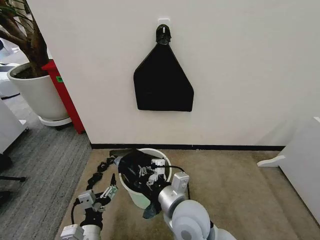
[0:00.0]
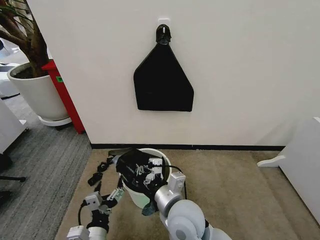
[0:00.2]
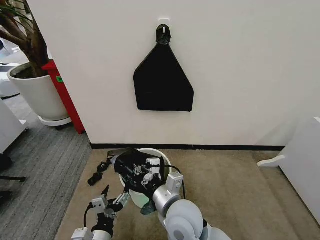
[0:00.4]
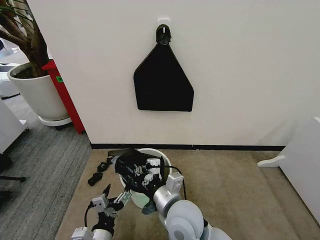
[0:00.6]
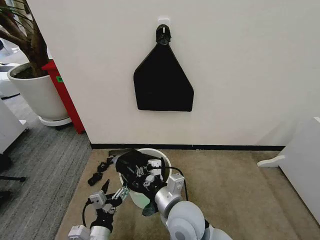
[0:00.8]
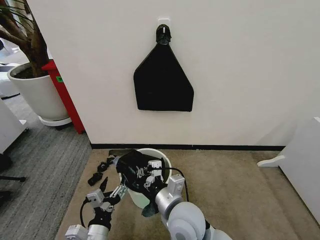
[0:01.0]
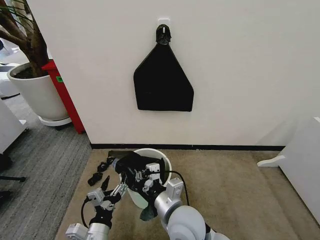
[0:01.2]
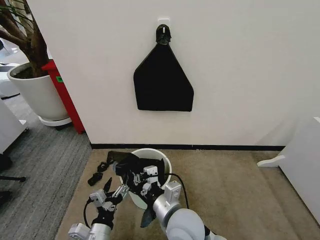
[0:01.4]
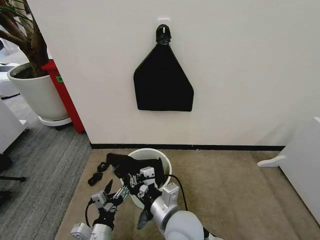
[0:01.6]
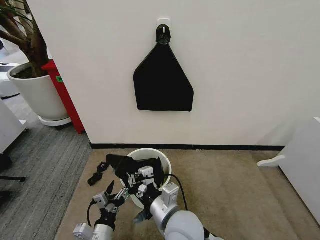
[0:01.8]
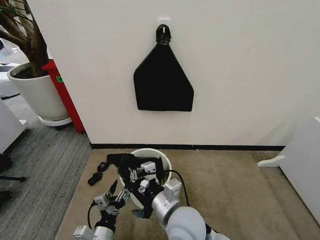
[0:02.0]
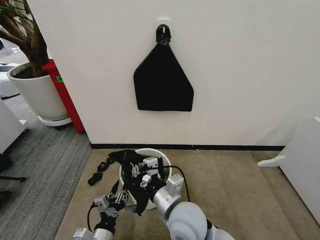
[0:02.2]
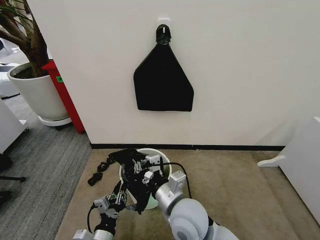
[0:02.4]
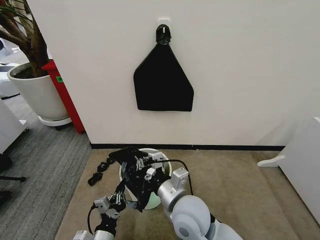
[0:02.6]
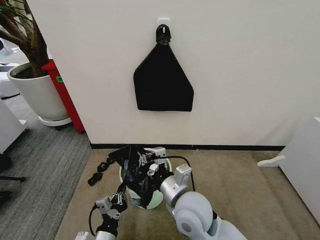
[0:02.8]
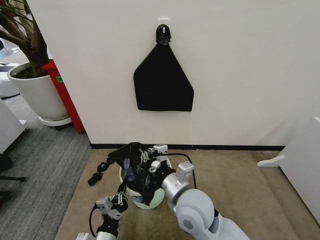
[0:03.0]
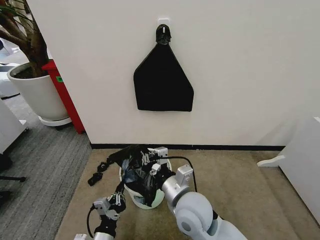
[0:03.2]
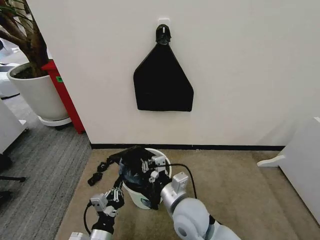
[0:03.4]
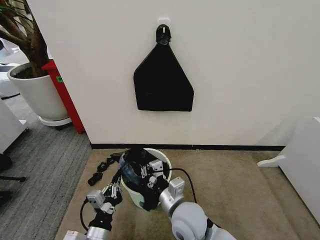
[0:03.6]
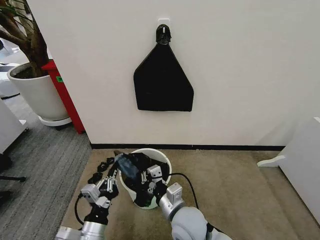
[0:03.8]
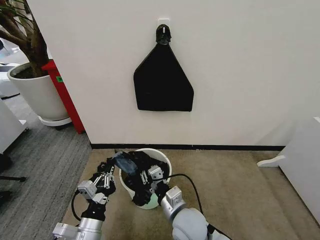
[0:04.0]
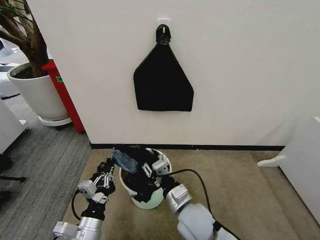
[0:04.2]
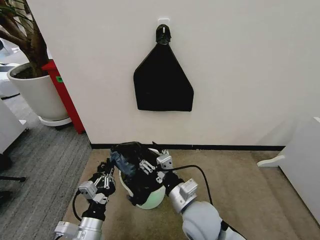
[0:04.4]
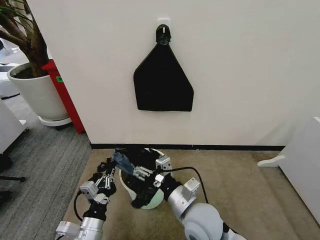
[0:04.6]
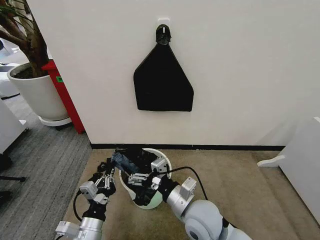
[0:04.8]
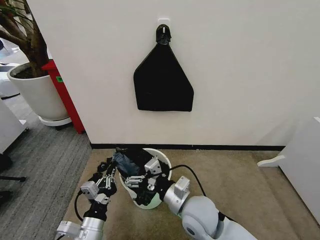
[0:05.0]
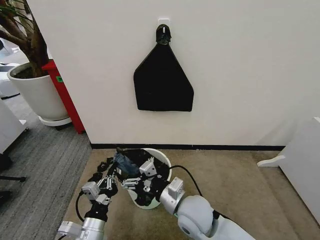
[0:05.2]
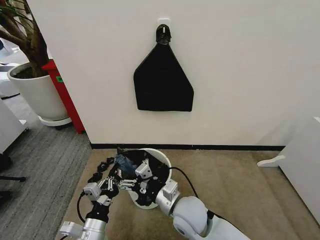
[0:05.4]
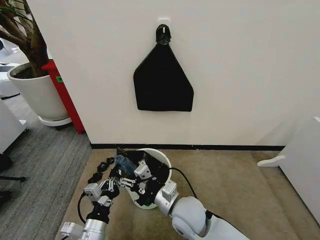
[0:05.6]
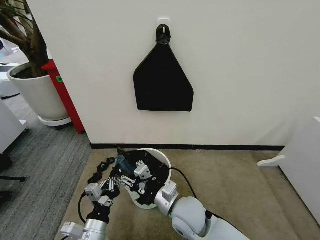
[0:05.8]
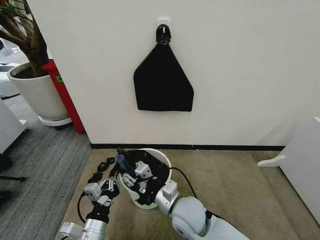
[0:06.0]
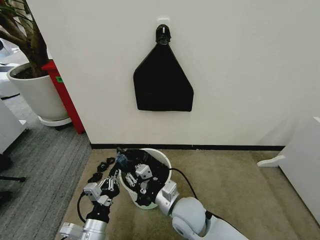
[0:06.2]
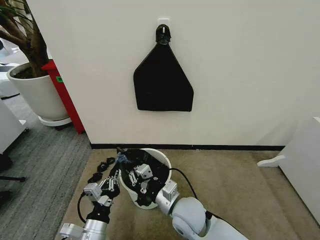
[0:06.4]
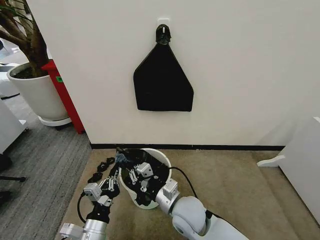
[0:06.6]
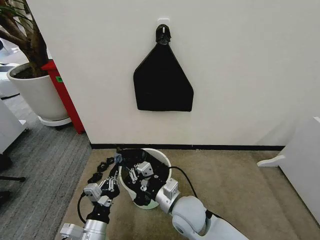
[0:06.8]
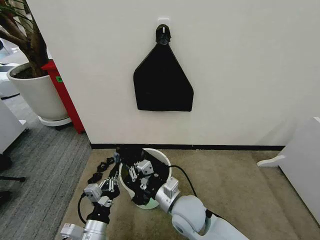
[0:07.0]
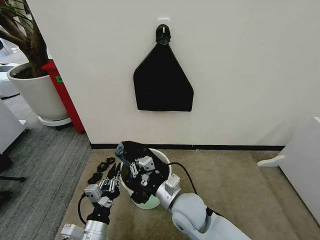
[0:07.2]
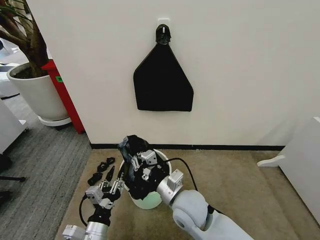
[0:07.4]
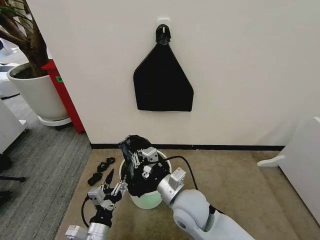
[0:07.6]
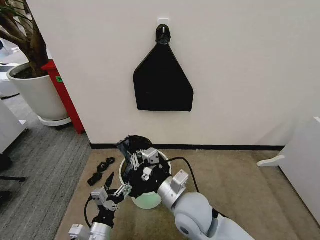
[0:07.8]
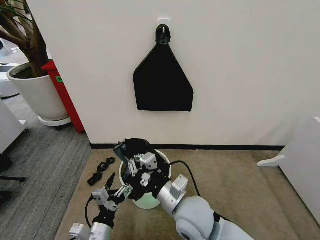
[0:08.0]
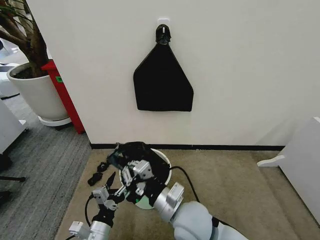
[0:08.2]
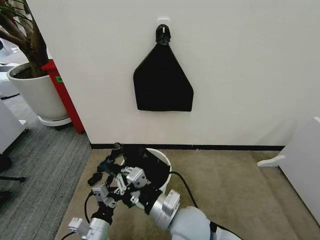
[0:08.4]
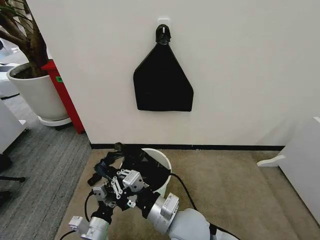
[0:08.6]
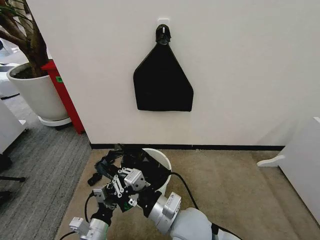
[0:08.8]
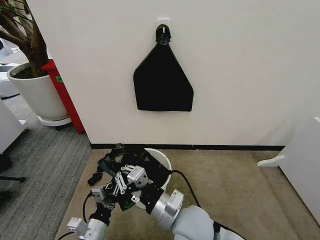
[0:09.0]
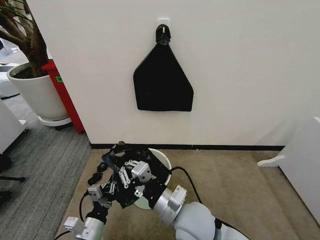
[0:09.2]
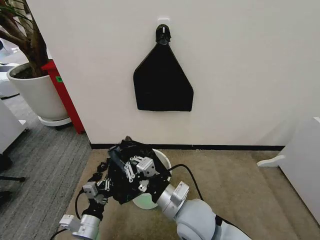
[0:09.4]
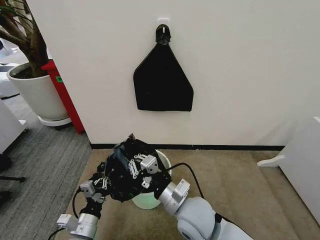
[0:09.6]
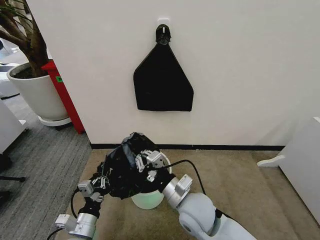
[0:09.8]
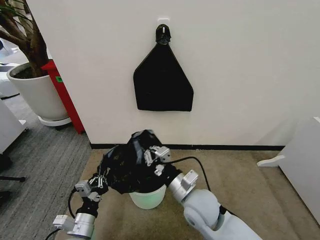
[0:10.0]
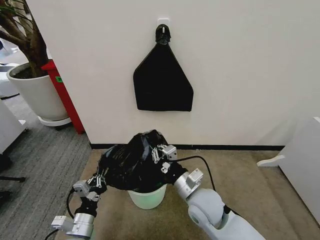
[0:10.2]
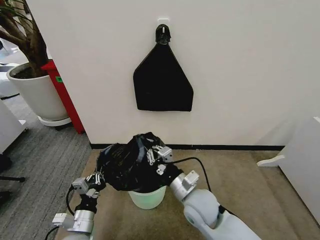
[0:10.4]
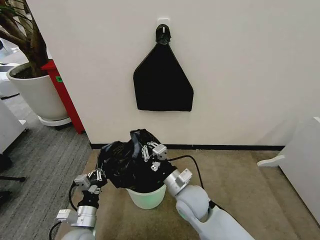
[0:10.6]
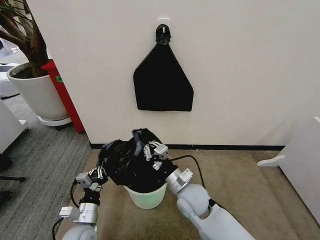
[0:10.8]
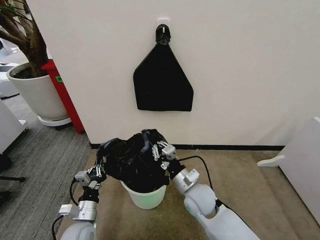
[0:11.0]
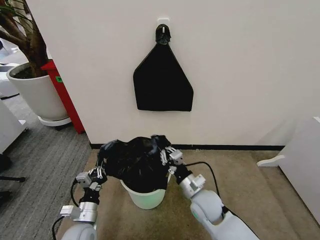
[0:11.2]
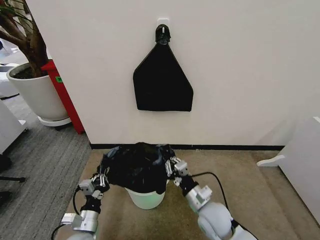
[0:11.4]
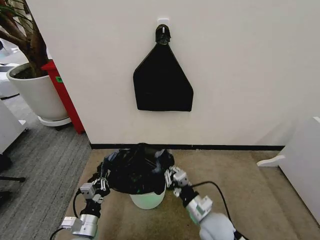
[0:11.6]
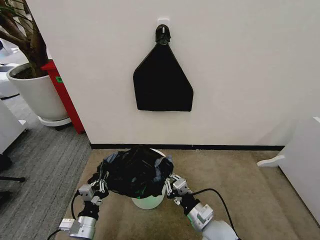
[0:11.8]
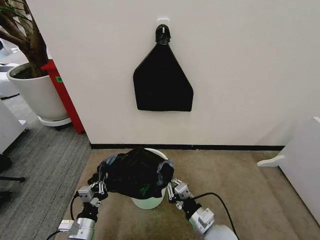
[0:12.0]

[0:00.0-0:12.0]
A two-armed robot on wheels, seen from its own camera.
Task of the whole recording: Place the garbage bag over the trash bin.
0:00.0 to 0:01.6: The grippers make only small movements.
0:01.6 to 0:03.0: The left gripper closes. Meanwhile the right gripper changes place by approximately 5 cm.
0:03.0 to 0:04.4: The left gripper shifts roughly 5 cm upward. Meanwhile the right gripper opens its fingers.
0:04.4 to 0:06.0: The right gripper changes place by some 5 cm.
0:06.0 to 0:07.6: The left gripper opens its fingers. The right gripper closes.
0:07.6 to 0:09.0: The right gripper travels backward by roughly 5 cm. Meanwhile the left gripper closes.
0:09.0 to 0:10.4: The right gripper goes approximately 5 cm forward.
0:10.4 to 0:12.0: The right gripper moves downward, backward and to the right, about 15 cm.

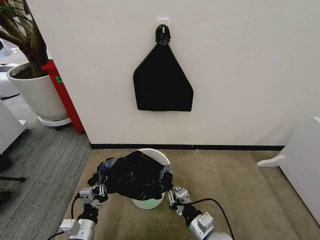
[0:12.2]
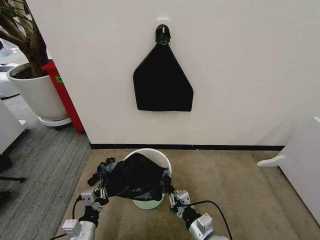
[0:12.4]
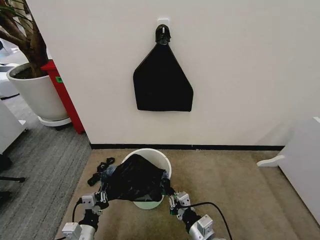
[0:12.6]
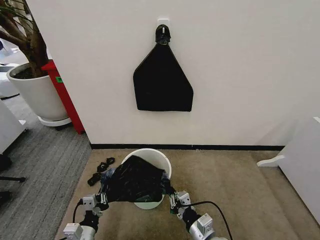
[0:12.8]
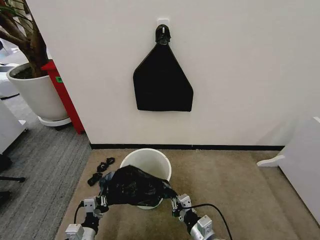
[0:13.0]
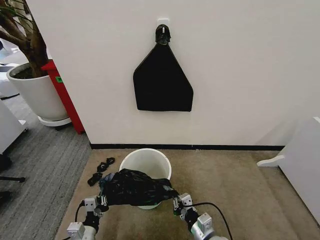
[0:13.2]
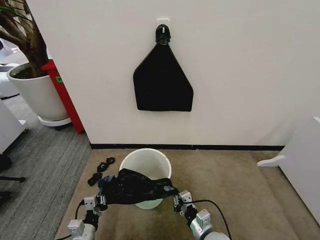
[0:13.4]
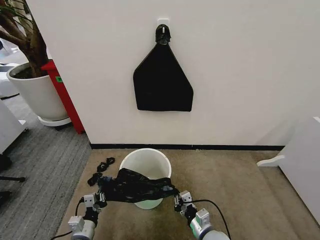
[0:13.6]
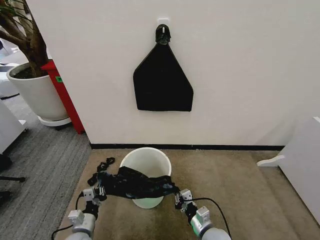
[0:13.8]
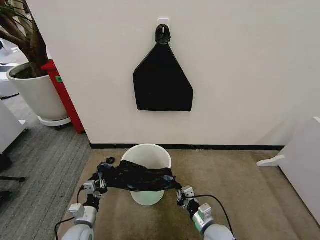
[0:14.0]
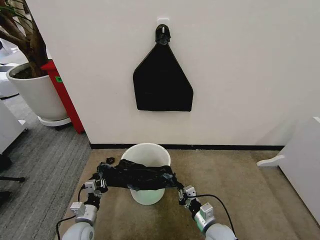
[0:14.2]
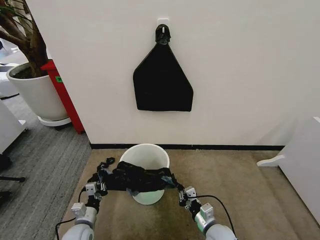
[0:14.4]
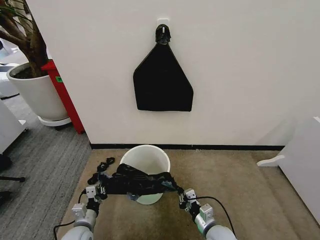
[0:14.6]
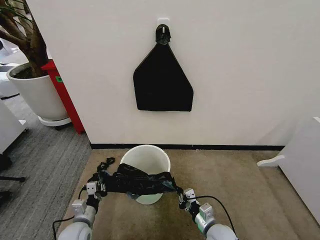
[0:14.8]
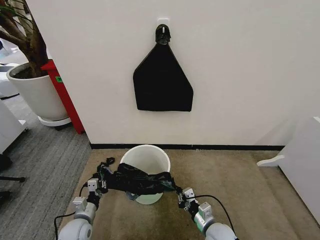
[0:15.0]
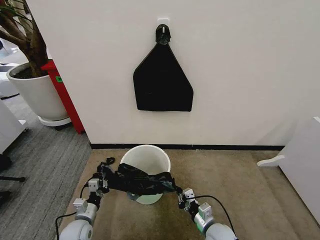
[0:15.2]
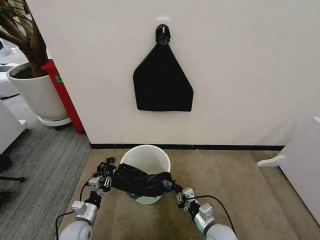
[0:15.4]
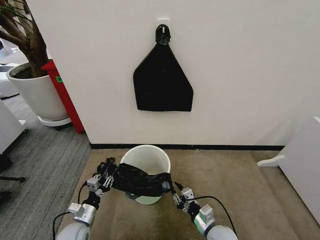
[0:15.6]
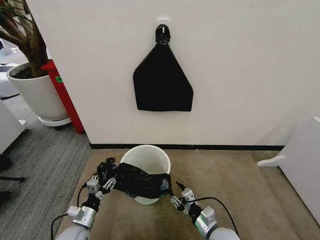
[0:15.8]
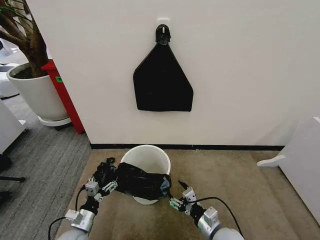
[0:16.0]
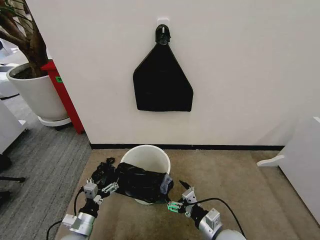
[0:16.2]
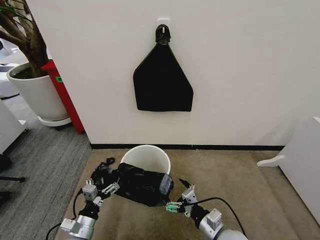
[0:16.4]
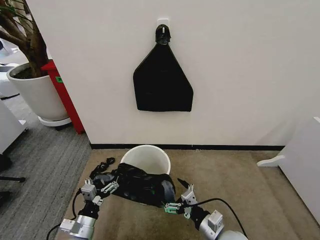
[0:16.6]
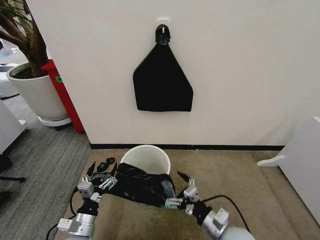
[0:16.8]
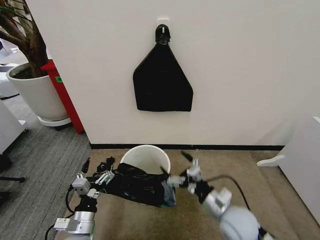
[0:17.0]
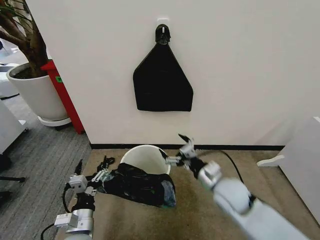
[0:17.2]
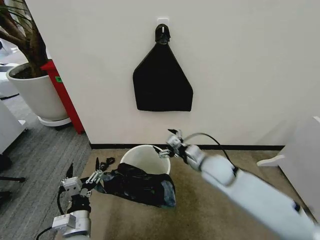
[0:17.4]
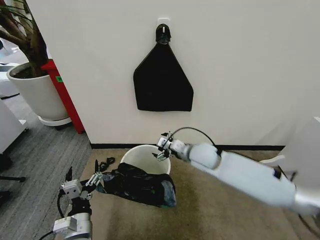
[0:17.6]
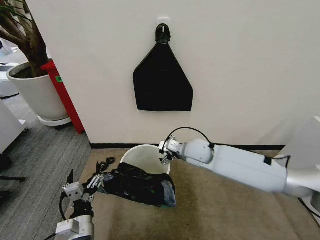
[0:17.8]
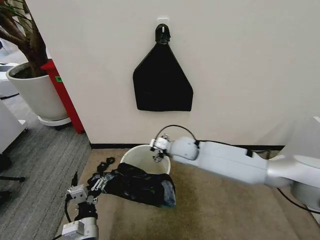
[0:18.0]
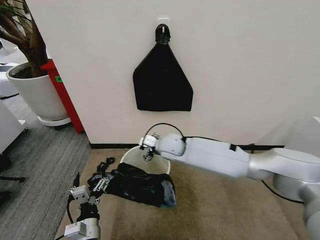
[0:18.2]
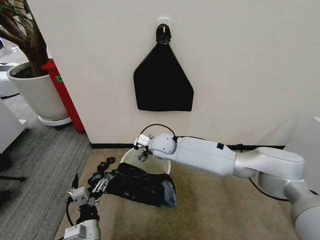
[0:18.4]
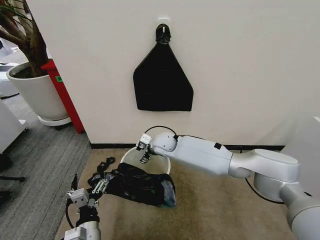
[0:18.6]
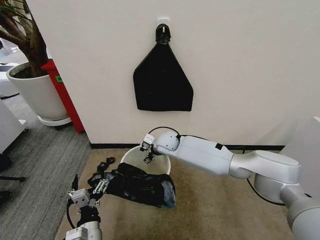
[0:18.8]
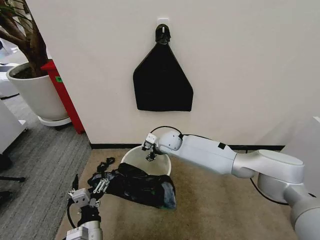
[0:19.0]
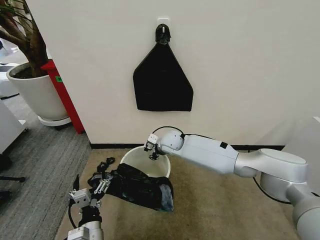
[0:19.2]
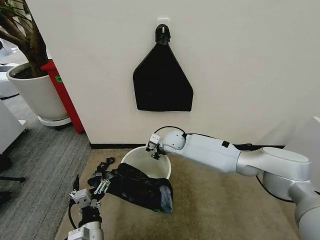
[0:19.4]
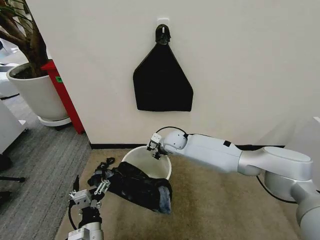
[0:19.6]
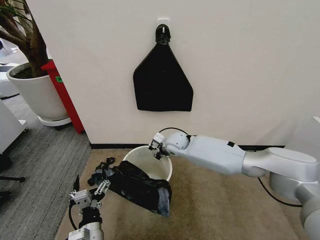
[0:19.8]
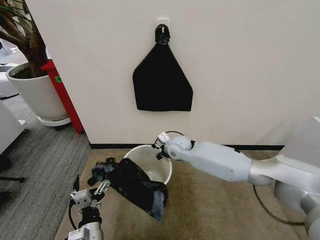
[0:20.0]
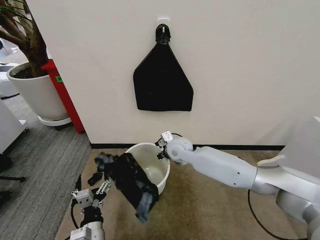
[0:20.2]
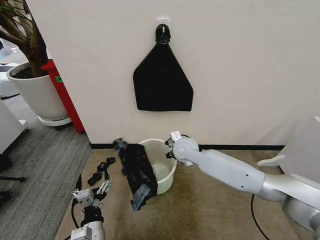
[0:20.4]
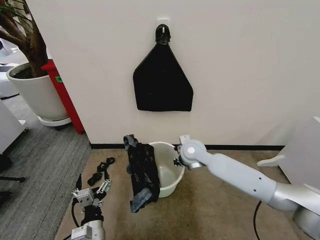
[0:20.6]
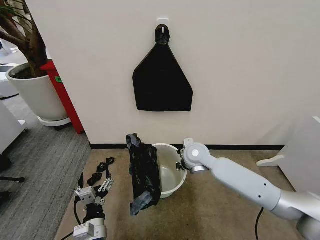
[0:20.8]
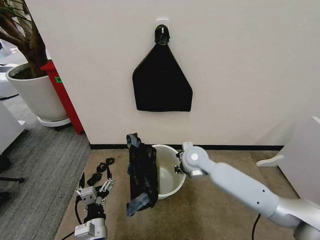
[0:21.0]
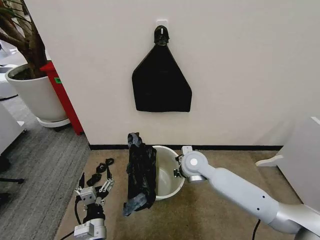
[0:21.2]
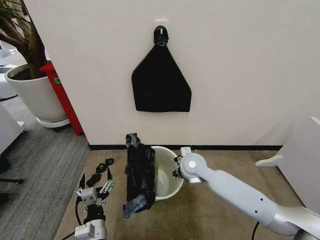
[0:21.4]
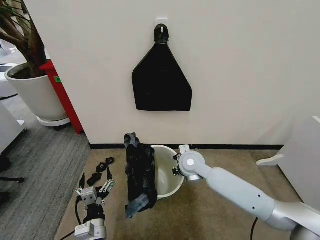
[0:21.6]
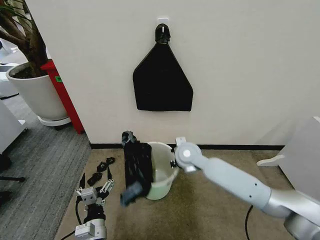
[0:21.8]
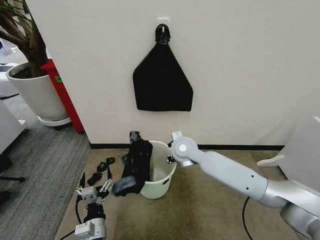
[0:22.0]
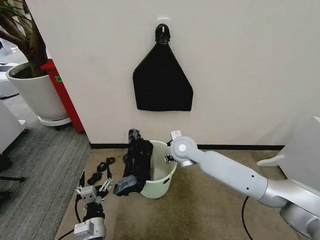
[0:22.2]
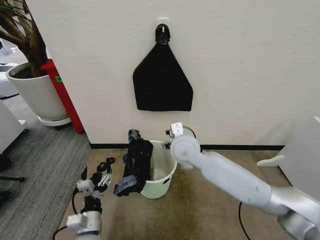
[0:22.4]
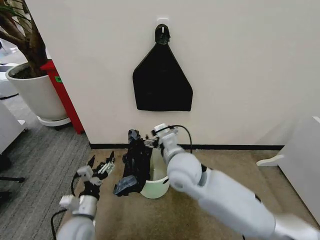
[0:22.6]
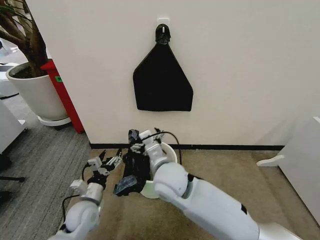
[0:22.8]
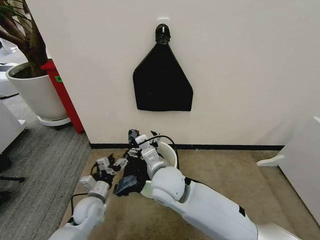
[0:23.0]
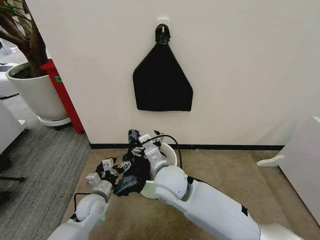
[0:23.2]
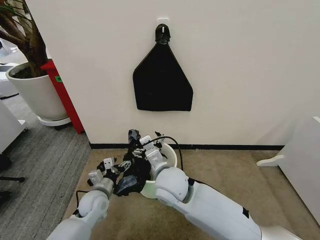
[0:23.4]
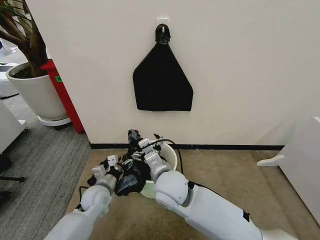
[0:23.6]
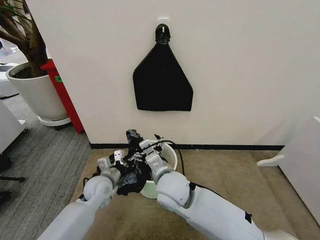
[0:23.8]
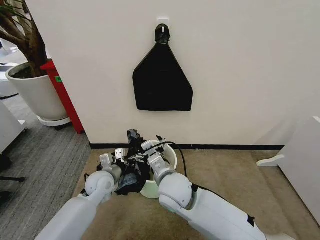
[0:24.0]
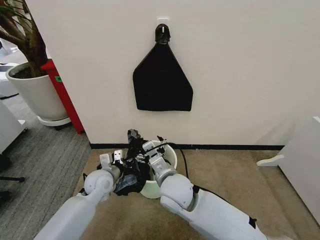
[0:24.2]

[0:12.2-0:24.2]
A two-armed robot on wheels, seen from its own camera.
Task of the whole recording: Place the garbage bag over the trash bin.
0:12.2 to 0:13.8: The grippers both shift downward by approximately 5 cm.
0:13.8 to 0:15.2: There are only small adjustments of the grippers.
0:15.2 to 0:16.6: The left gripper shifts some 10 cm backward and upward, and opens up; the right gripper goes some 10 cm upward, and opens.
0:16.6 to 0:18.2: The right gripper heads forward, to the left and upward, covering approximately 35 cm. Meanwhile the left gripper moves to the right, approximately 5 cm.
0:18.2 to 0:19.8: The right gripper ends up some 5 cm from where it was, and closes.
0:19.8 to 0:21.2: The right gripper shifts some 10 cm backward.
0:21.2 to 0:22.6: The left gripper shifts some 5 cm to the left; the right gripper goes approximately 10 cm upward and backward, and opens up.
0:22.6 to 0:24.2: The right gripper travels downward by approximately 5 cm. The left gripper goes about 15 cm forward, and closes.
